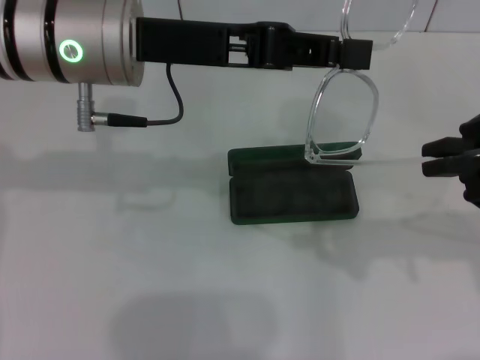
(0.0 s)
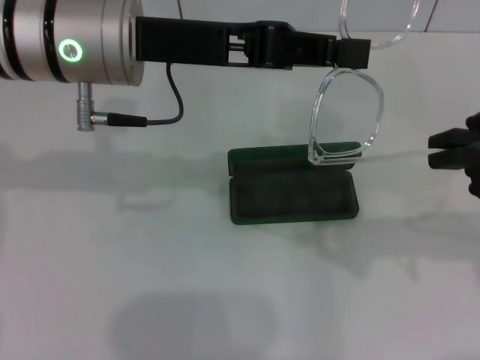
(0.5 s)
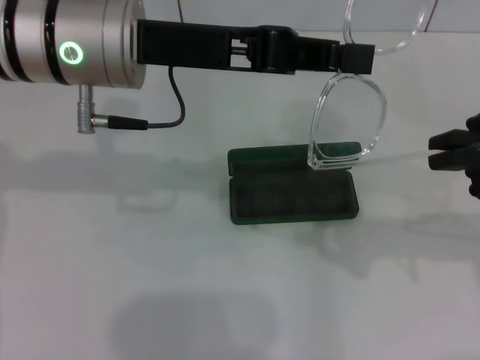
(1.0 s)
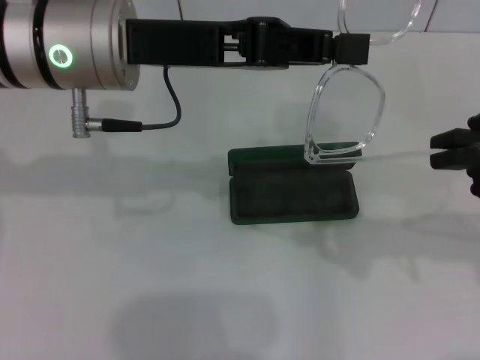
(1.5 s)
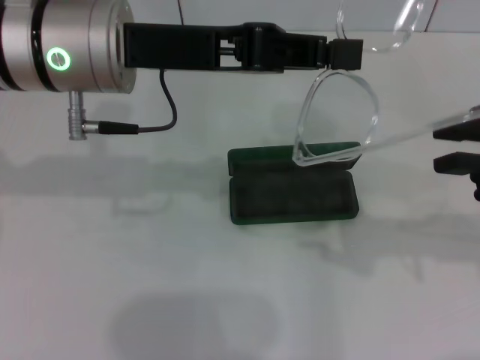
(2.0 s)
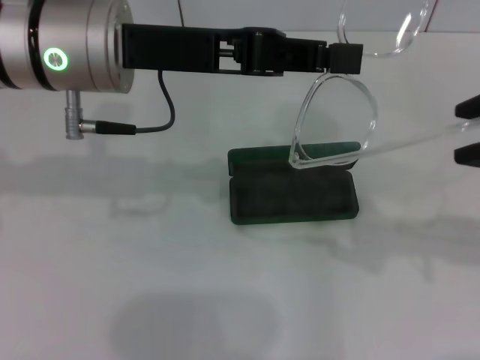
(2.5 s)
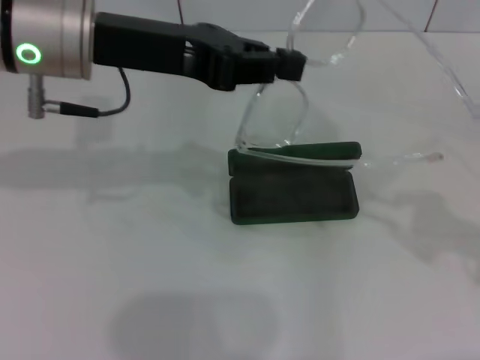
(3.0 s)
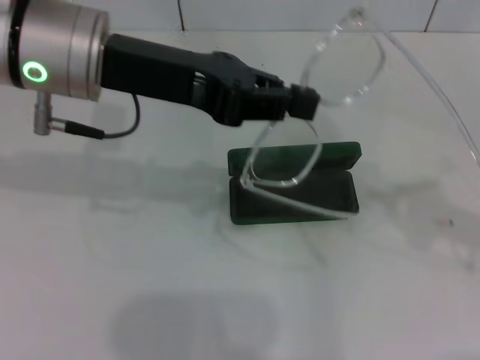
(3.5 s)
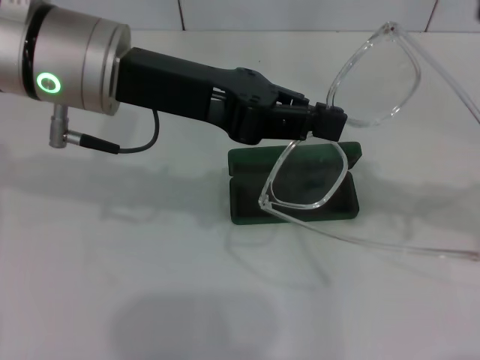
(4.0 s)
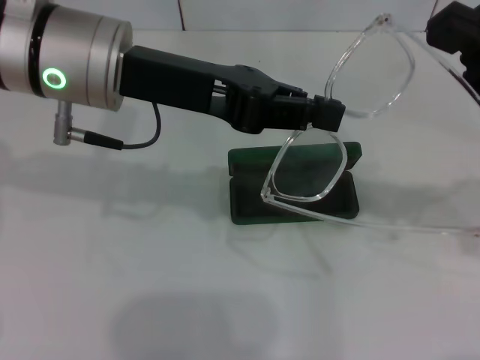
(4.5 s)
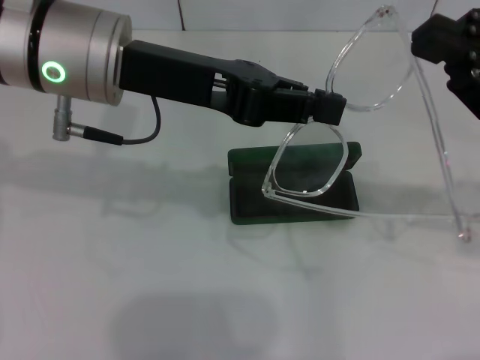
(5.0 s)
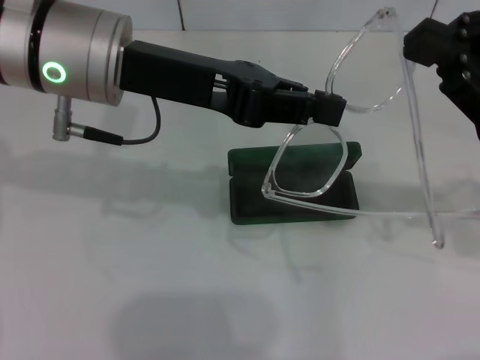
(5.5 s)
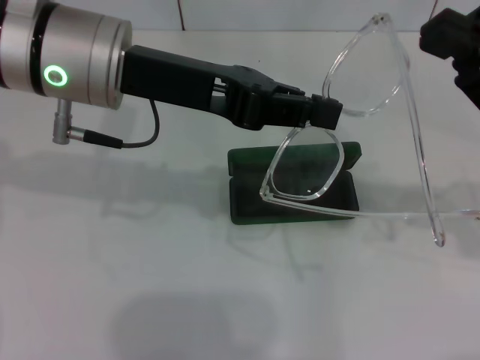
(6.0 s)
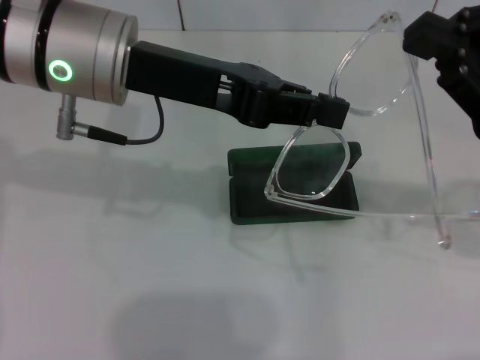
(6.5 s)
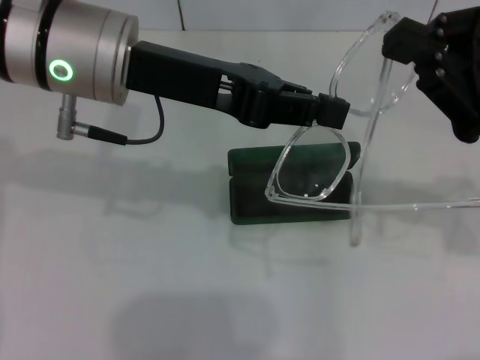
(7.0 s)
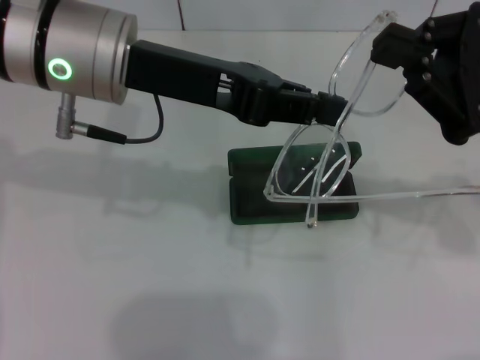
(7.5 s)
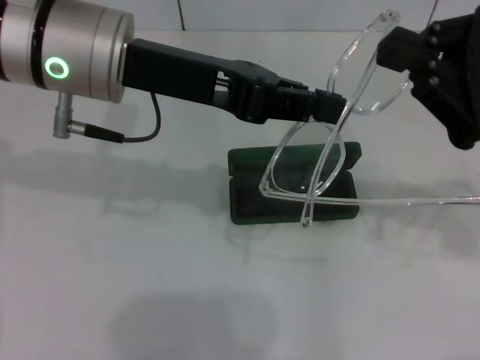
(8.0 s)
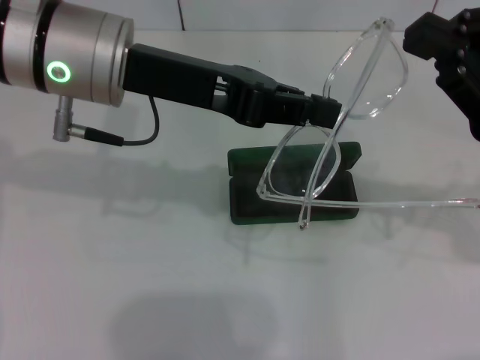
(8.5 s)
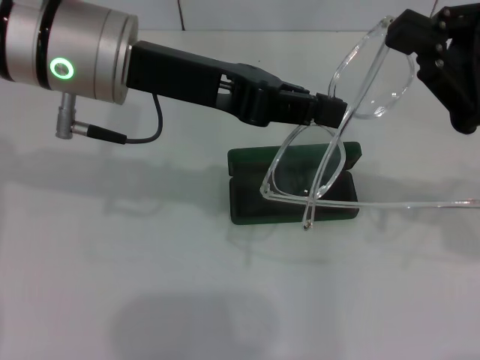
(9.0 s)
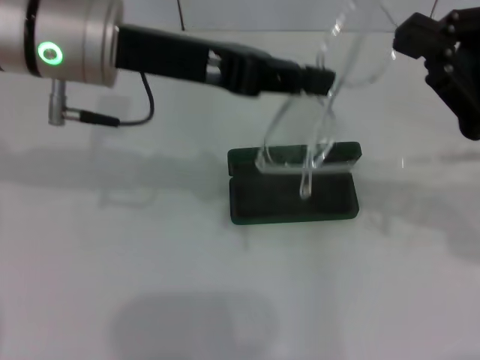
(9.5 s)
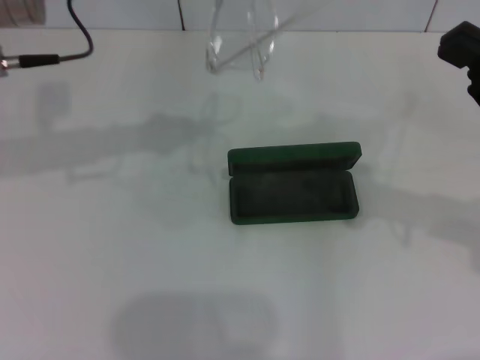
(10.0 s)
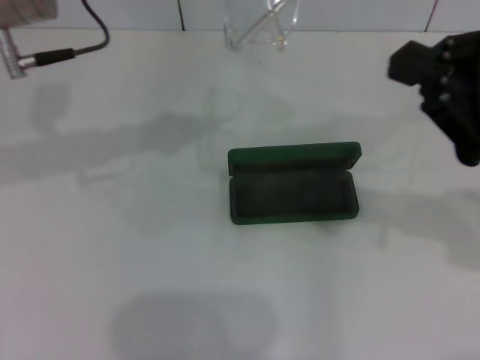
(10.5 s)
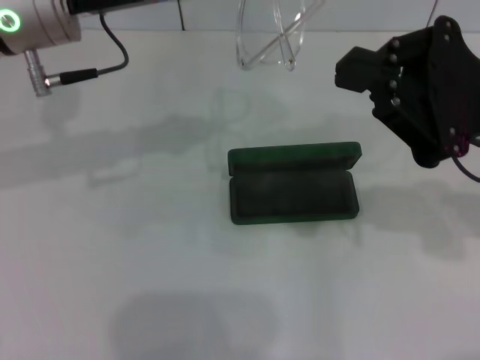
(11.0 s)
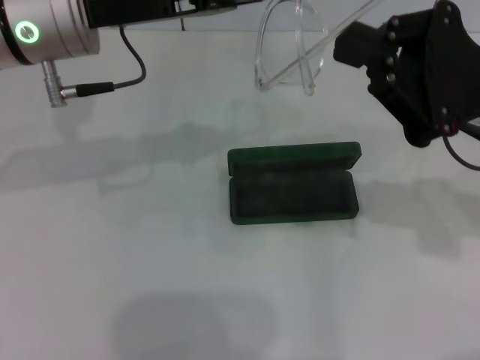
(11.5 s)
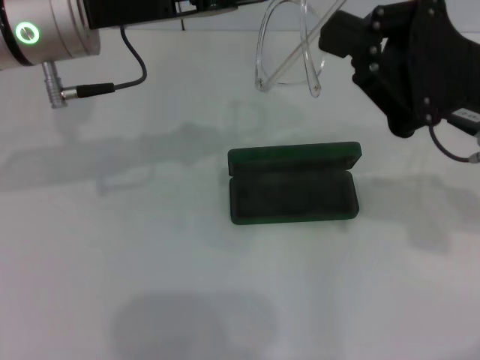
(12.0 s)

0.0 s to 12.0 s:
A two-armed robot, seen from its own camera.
0.0 to 2.0 s: Both grippers stay about where they are.
4.0 to 8.0 s: The grippers stay close to where they were, moving slightly.
8.0 to 10.0 s: The left gripper travels to the left by some 5 cm.
10.0 to 12.0 s: The right gripper goes roughly 5 cm to the left.

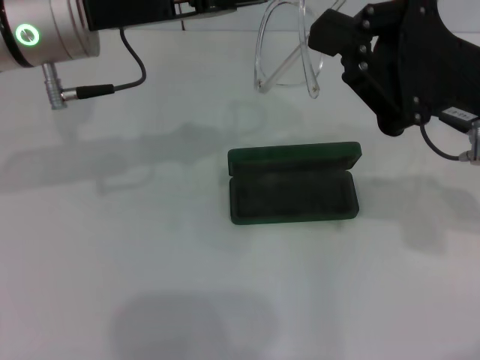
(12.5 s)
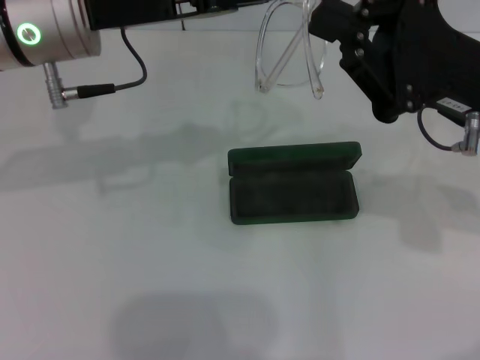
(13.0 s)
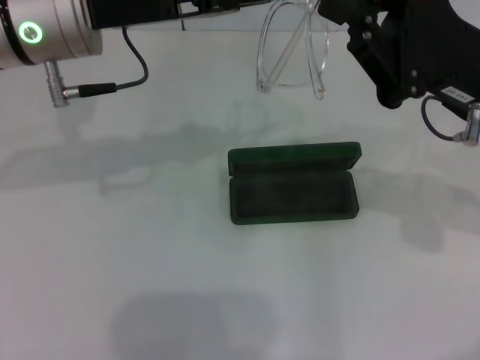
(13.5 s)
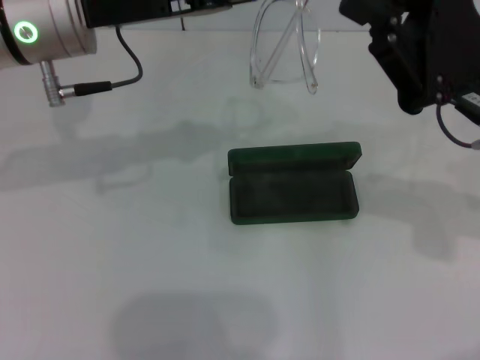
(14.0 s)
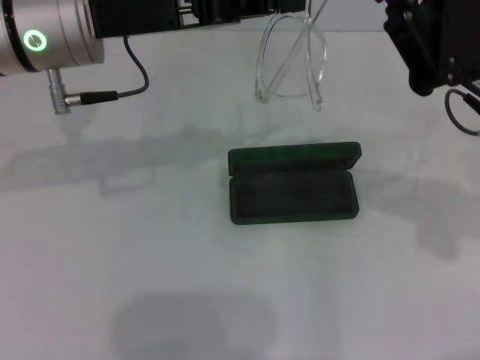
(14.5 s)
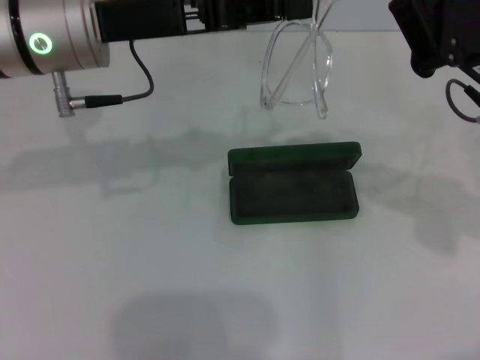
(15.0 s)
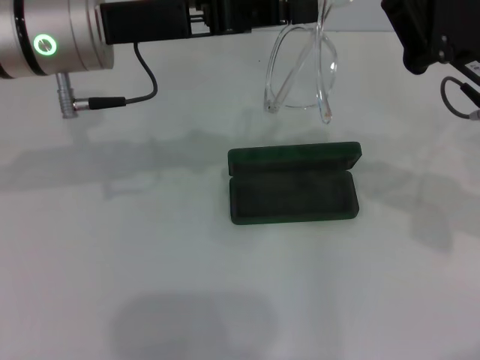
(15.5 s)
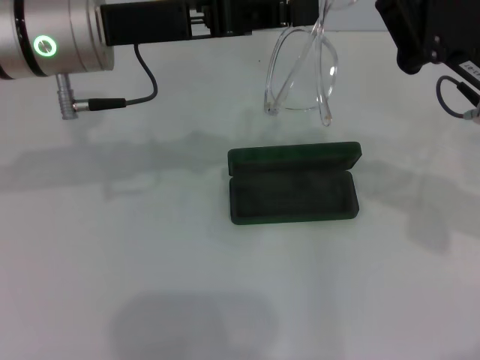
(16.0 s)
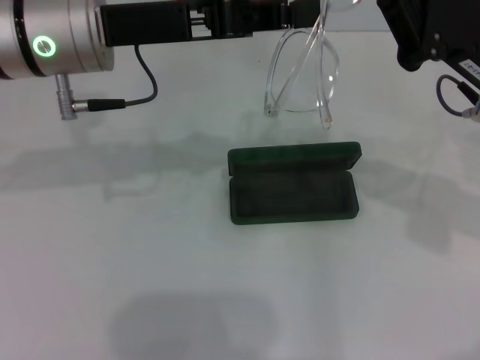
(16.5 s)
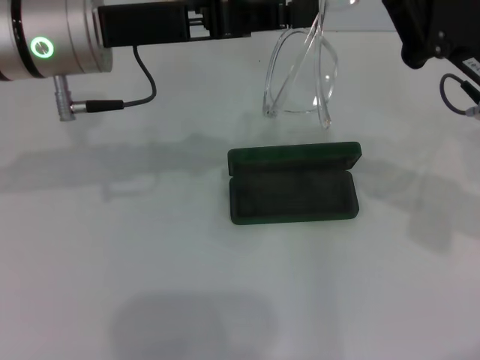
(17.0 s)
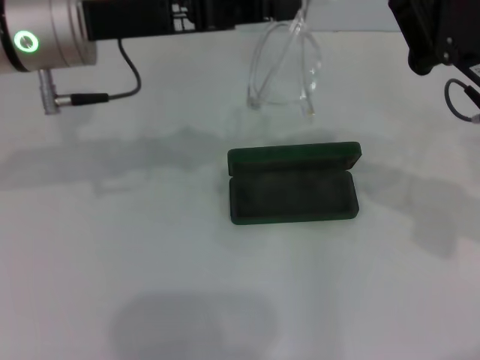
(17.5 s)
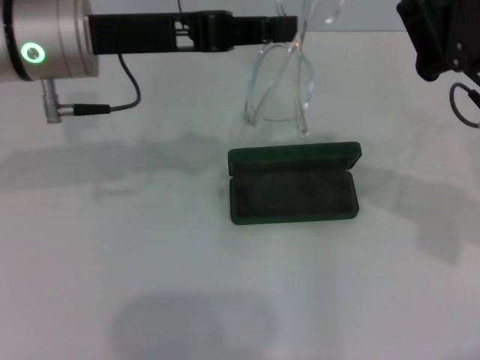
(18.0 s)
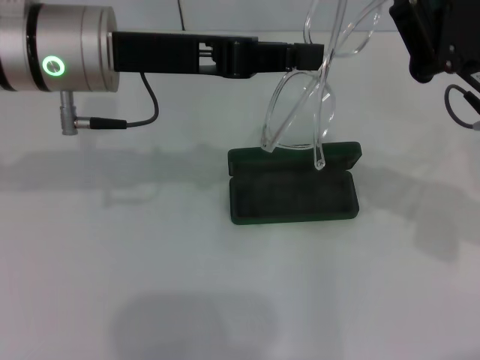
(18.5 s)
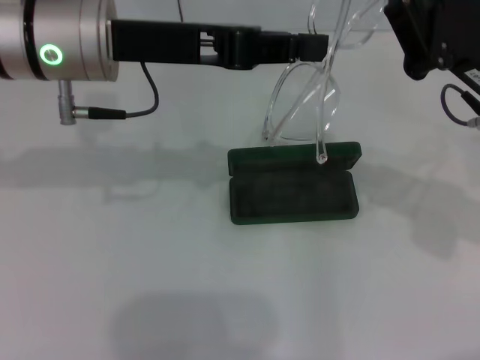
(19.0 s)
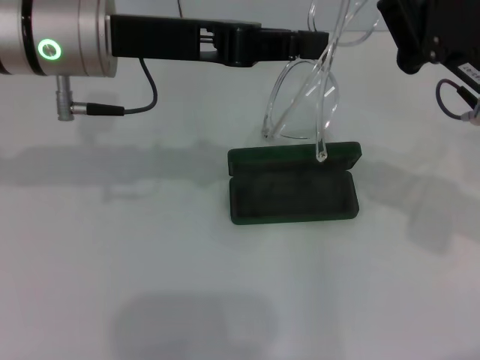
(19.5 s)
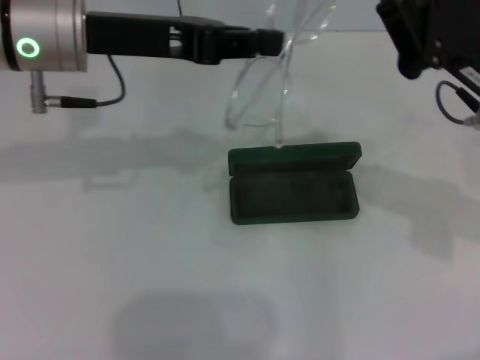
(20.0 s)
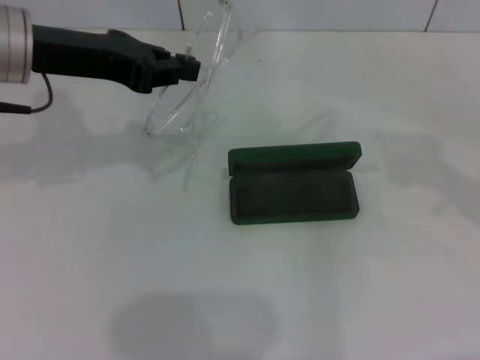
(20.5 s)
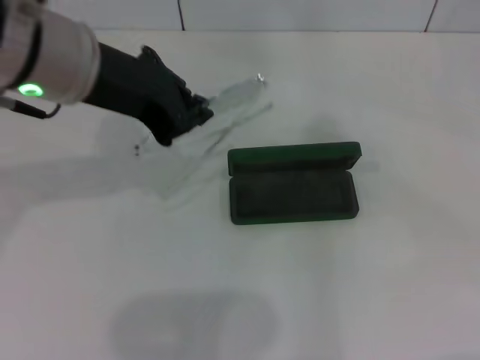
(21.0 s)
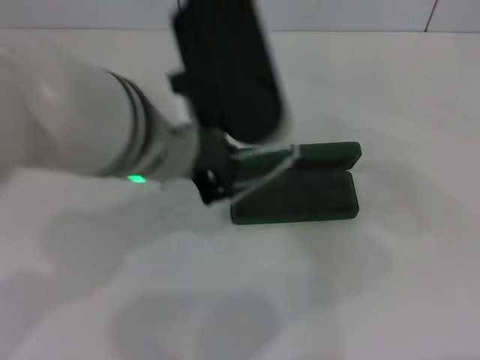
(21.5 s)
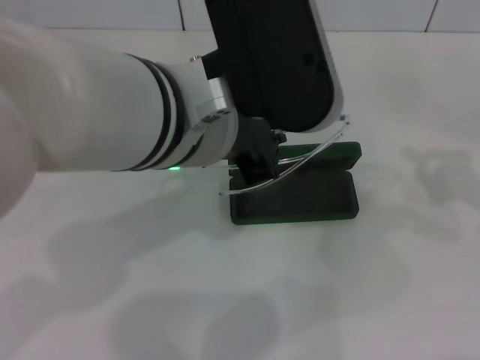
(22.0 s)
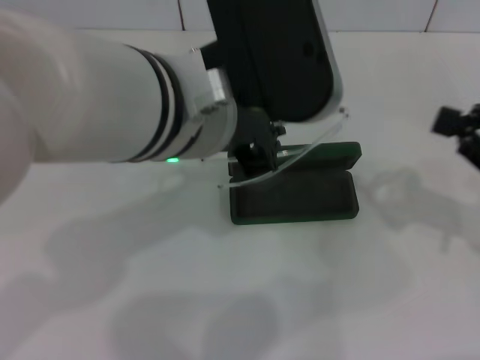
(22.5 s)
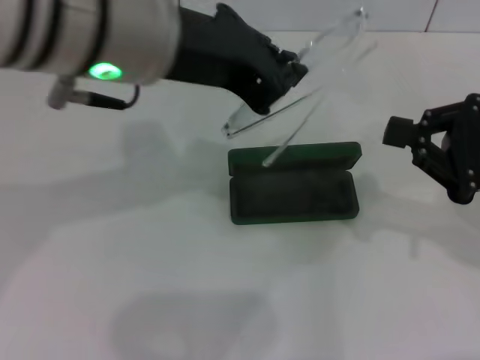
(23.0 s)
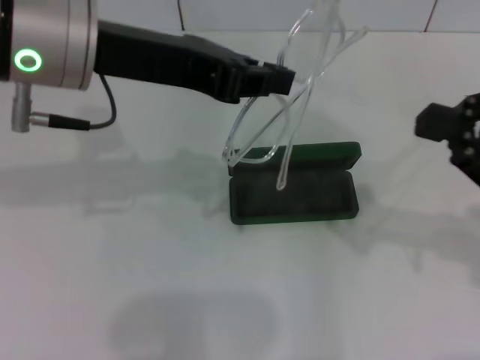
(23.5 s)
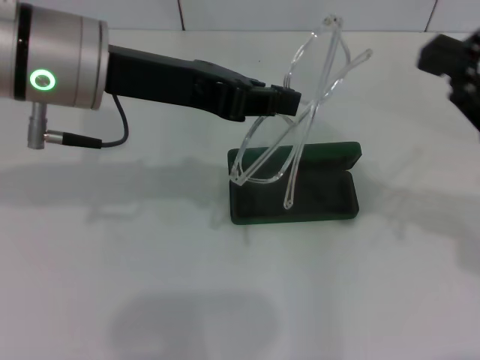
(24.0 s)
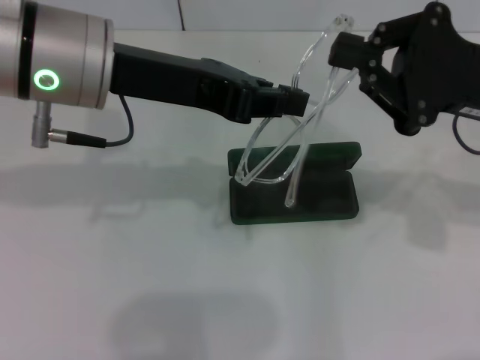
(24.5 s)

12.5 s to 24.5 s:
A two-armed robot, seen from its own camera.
Step, 12.5 to 16.5 s: Fold the frame with your right hand.
12.5 to 18.5 s: The grippers move only a little.
18.5 to 20.5 s: The right gripper is displaced to the right by some 10 cm. The left gripper goes some 5 cm to the left.
20.5 to 22.5 s: The right gripper moves approximately 15 cm to the right and comes back. Meanwhile the left gripper heads to the right and backward, covering approximately 20 cm.
22.5 to 24.5 s: The right gripper moves to the left, some 10 cm; the left gripper travels to the left and forward by approximately 10 cm.

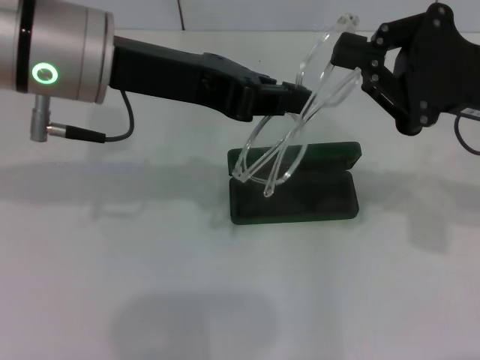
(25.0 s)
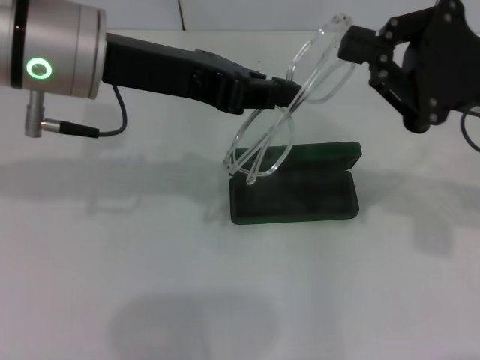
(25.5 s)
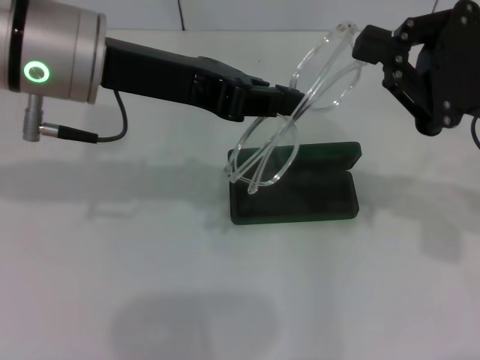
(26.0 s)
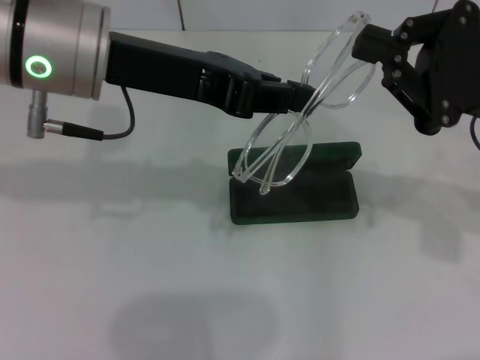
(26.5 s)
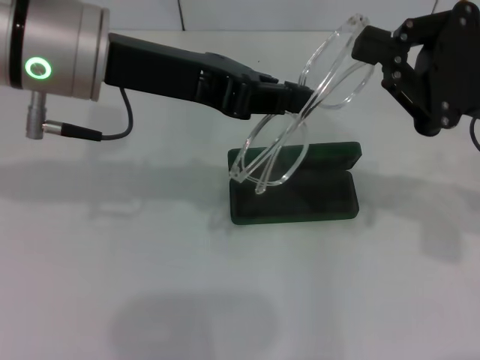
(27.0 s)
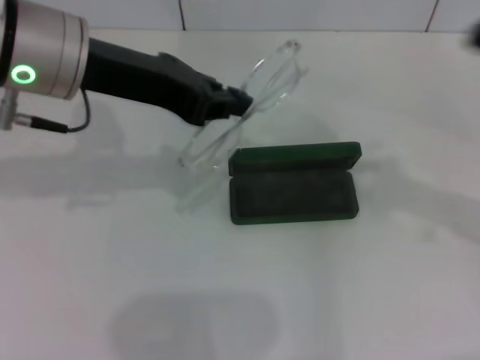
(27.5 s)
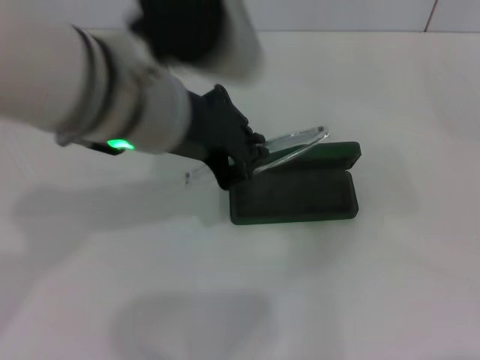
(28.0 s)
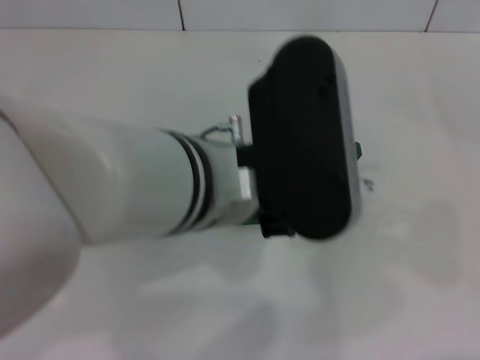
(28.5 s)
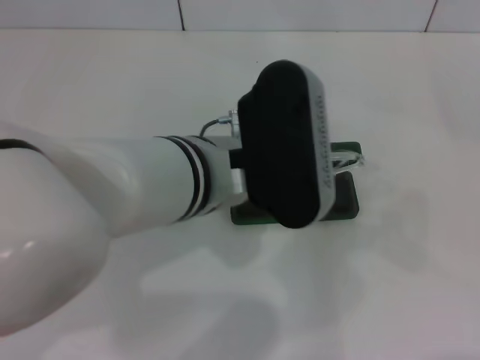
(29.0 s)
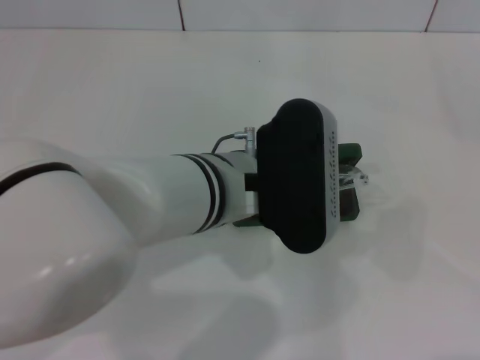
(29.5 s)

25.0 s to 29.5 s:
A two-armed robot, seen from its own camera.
25.0 to 27.0 s: Neither gripper changes place.
27.0 to 29.5 s: The left gripper is displaced to the right and downward by about 15 cm; the right gripper is displaced to the right and backward by some 25 cm.
